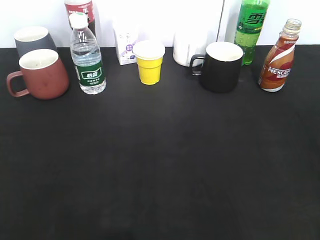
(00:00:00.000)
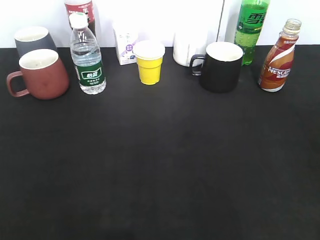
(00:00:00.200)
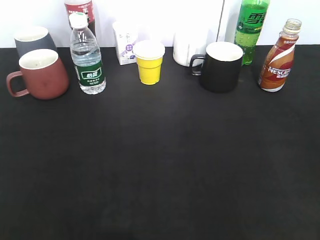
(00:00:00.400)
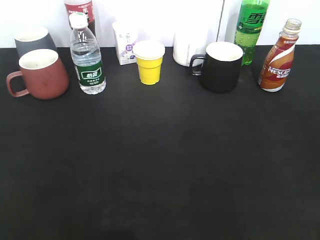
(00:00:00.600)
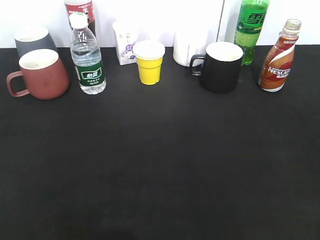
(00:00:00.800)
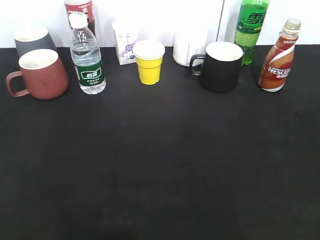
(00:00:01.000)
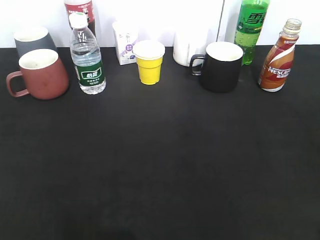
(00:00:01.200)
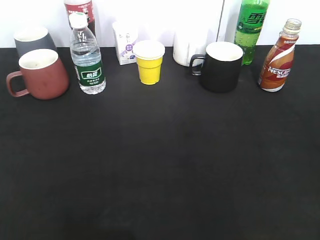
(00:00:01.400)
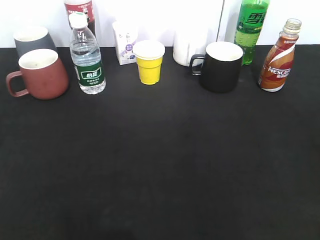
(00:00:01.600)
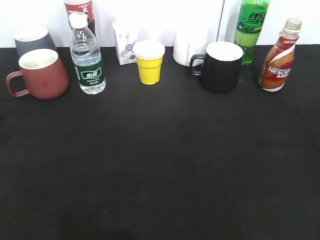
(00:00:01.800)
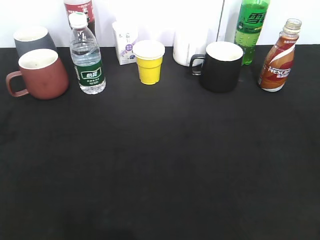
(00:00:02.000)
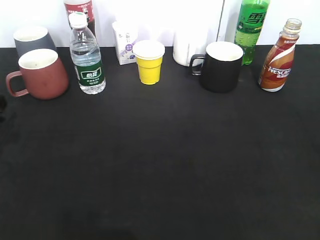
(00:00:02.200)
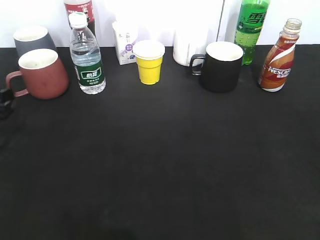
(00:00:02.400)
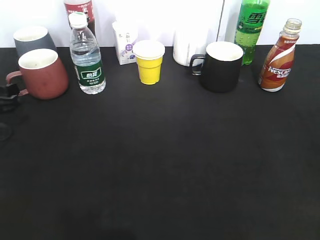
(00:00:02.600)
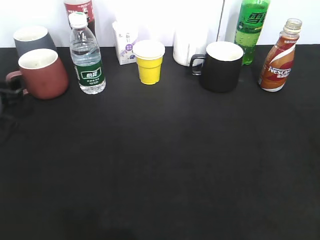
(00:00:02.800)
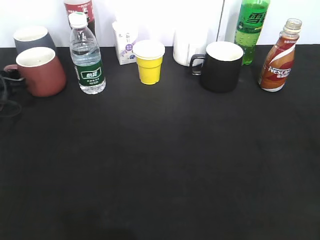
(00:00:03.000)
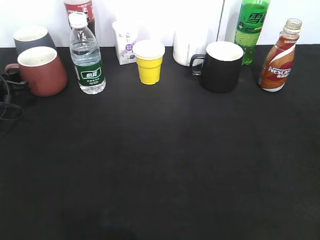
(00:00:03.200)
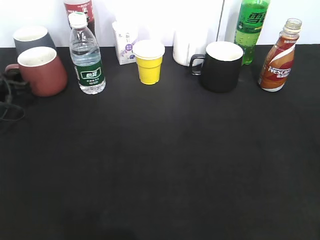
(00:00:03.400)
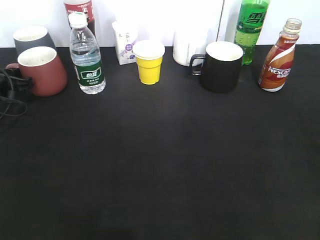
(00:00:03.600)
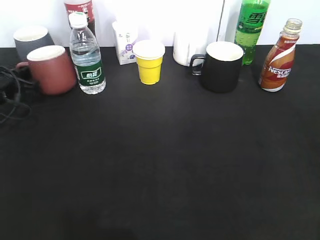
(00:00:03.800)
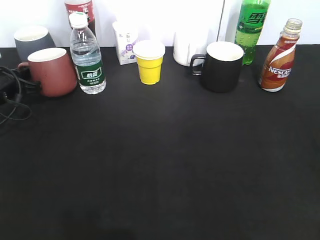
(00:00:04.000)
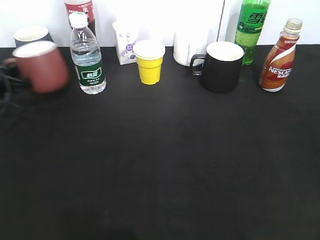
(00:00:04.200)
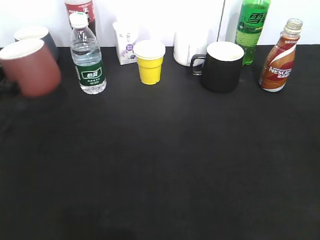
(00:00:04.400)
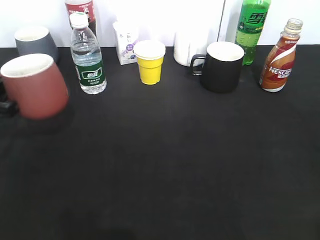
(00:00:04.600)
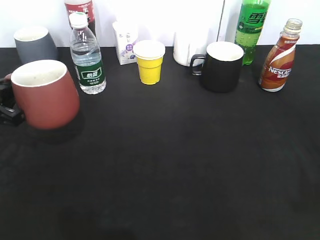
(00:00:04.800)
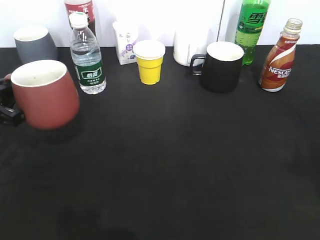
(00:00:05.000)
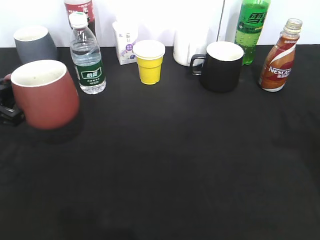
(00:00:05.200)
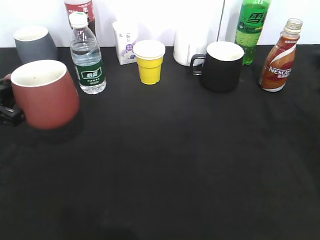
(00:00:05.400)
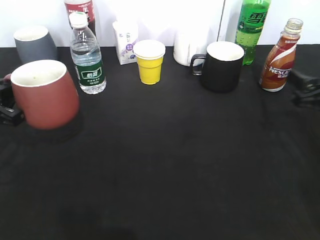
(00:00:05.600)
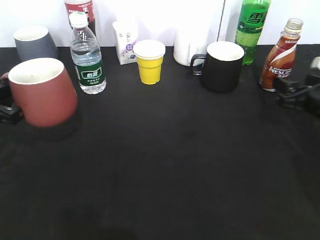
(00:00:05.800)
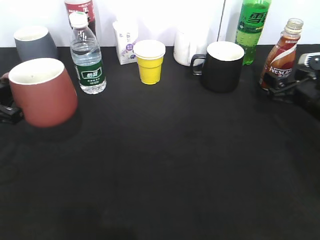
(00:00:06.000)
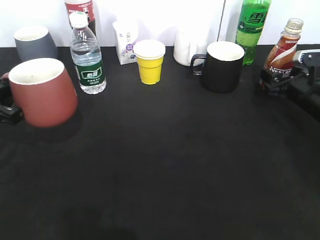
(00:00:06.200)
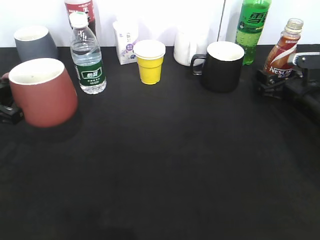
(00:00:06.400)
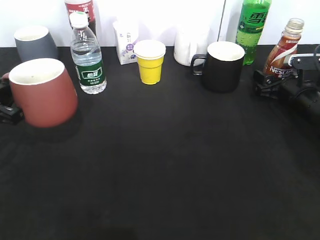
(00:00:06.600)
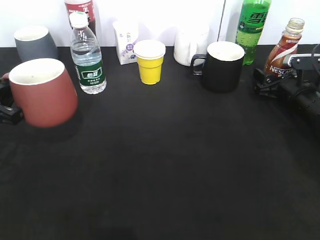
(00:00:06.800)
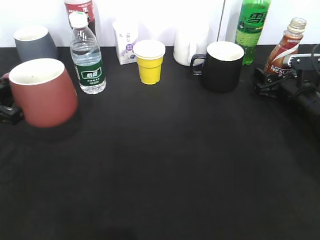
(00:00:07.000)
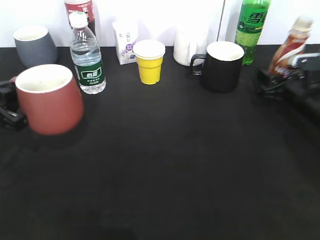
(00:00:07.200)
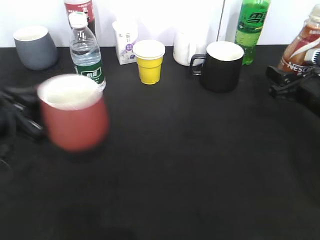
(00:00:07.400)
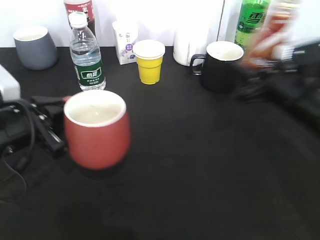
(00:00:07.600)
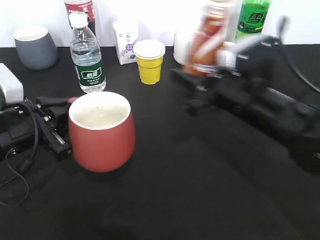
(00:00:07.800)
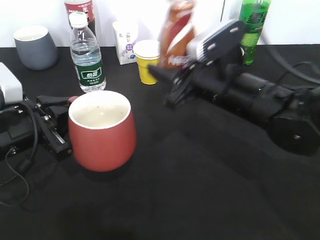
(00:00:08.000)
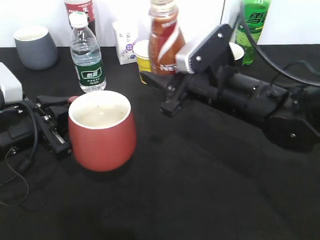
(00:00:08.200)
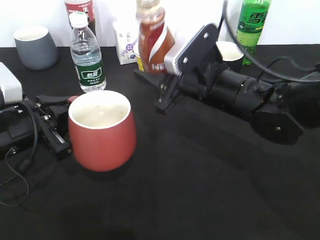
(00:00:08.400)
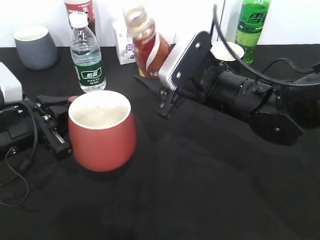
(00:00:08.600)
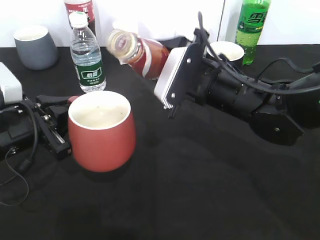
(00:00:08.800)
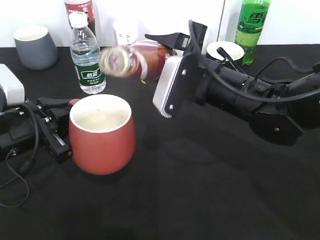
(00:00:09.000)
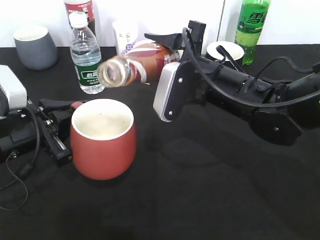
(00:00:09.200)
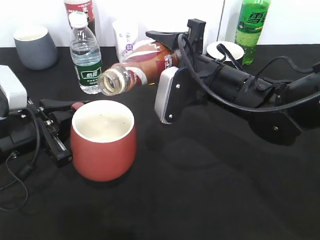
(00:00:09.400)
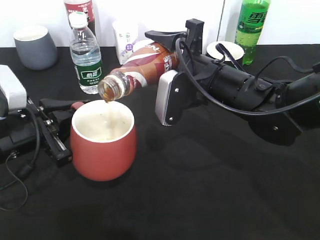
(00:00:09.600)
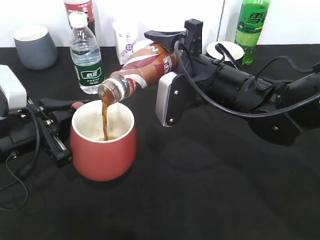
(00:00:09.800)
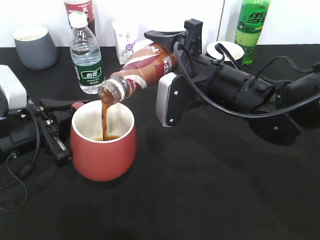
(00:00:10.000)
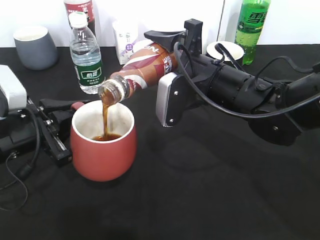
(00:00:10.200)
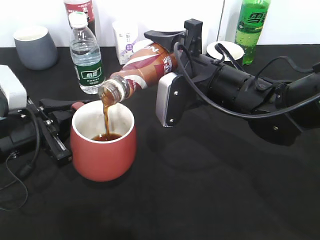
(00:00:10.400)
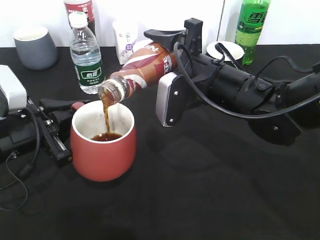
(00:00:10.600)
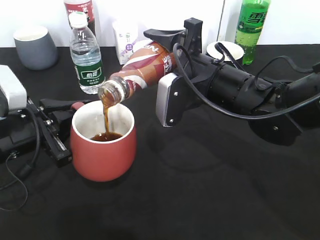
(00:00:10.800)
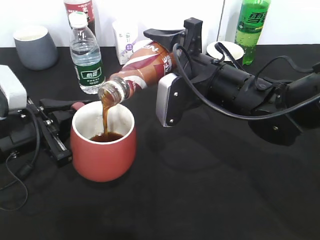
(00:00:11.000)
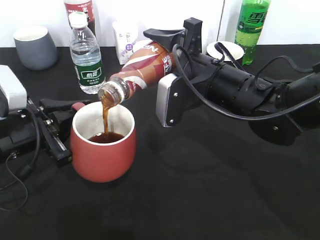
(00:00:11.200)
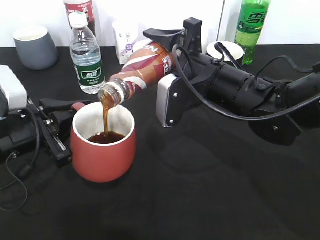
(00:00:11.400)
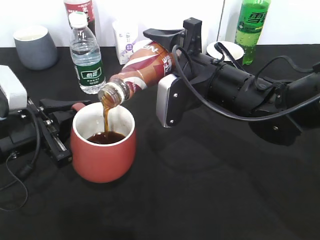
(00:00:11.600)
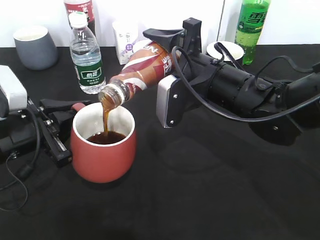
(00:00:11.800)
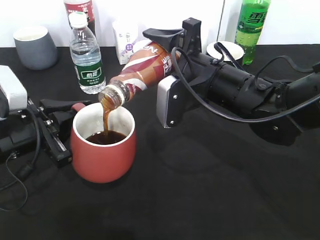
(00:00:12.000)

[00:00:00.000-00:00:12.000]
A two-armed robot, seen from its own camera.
Step, 00:00:00.000 to 00:00:03.200: Grasp the red cup with left gripper.
Step, 00:00:03.400 to 00:00:04.800: Lift the red cup with left gripper.
Step, 00:00:05.000 to 00:00:06.600: Grasp the bottle with coffee with right gripper.
00:00:01.600 to 00:00:03.000: The left gripper is displaced forward and downward by some 20 cm, and closes up.
00:00:03.000 to 00:00:04.400: The left gripper closes.
00:00:04.400 to 00:00:06.000: The left gripper is displaced backward by roughly 5 cm. Meanwhile the right gripper shifts approximately 40 cm forward and downward, and opens its fingers.
00:00:06.000 to 00:00:07.600: The left gripper moves to the right, some 10 cm. Meanwhile the right gripper travels to the left, backward and upward by about 15 cm, and closes its fingers.
00:00:07.600 to 00:00:09.000: The right gripper shifts roughly 10 cm to the left.
00:00:10.400 to 00:00:12.000: Both grippers stay put.

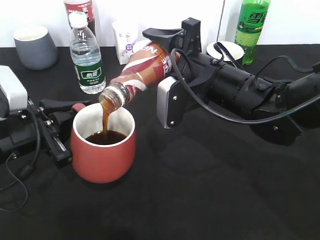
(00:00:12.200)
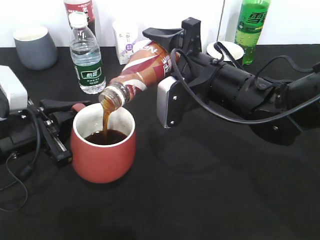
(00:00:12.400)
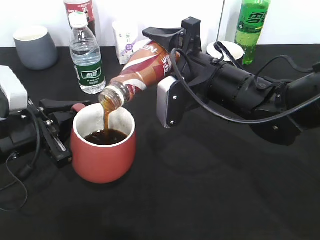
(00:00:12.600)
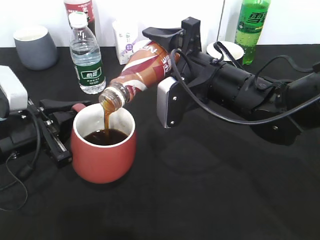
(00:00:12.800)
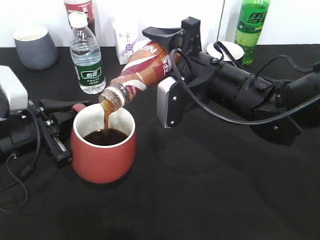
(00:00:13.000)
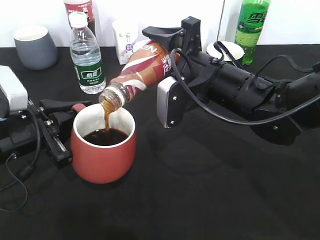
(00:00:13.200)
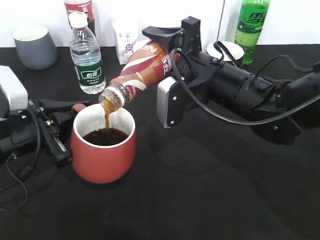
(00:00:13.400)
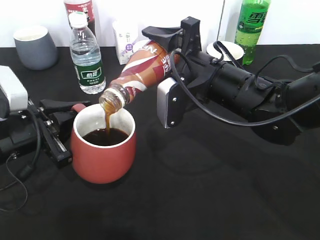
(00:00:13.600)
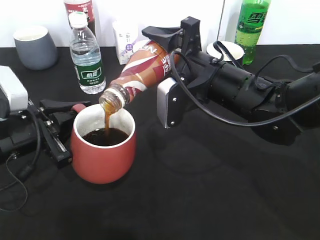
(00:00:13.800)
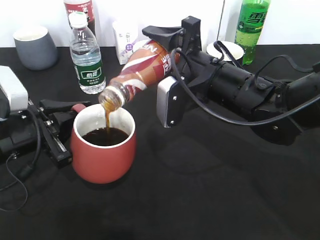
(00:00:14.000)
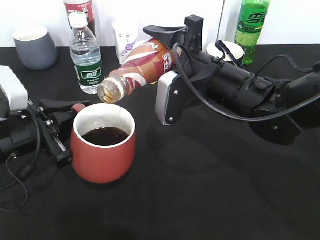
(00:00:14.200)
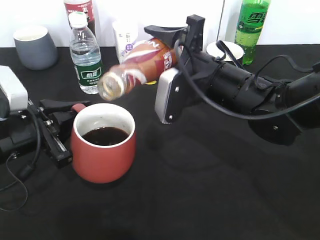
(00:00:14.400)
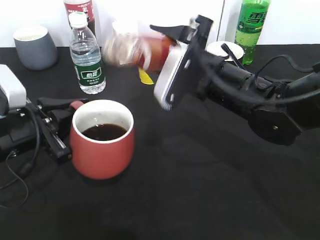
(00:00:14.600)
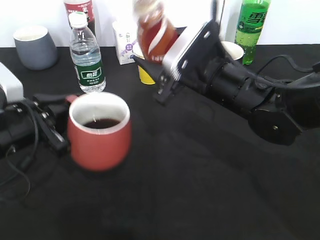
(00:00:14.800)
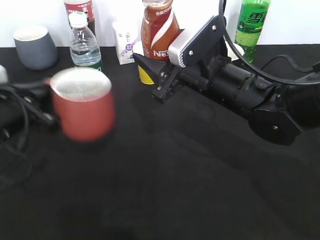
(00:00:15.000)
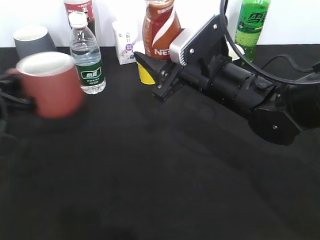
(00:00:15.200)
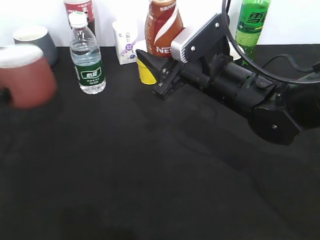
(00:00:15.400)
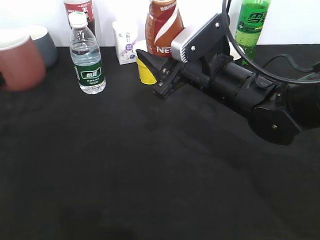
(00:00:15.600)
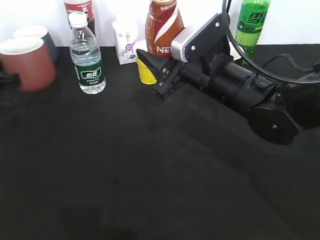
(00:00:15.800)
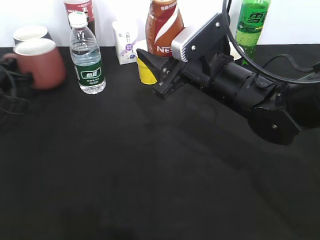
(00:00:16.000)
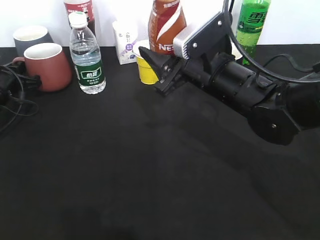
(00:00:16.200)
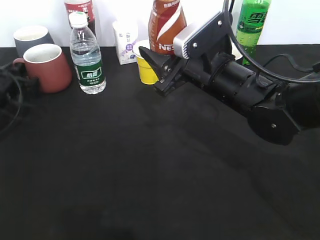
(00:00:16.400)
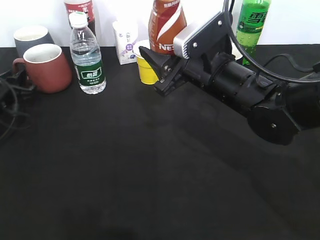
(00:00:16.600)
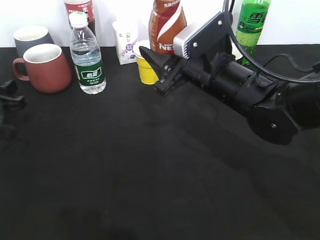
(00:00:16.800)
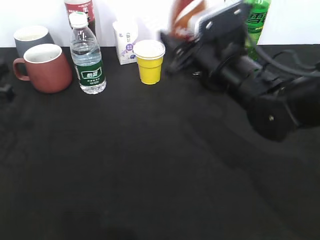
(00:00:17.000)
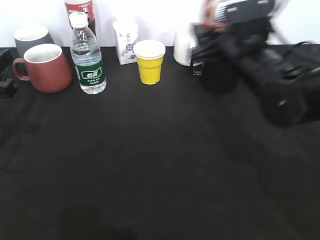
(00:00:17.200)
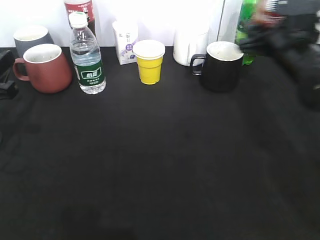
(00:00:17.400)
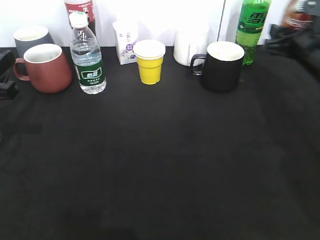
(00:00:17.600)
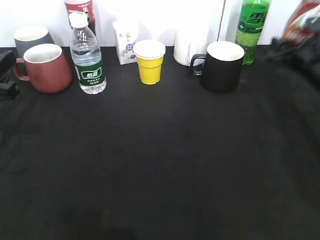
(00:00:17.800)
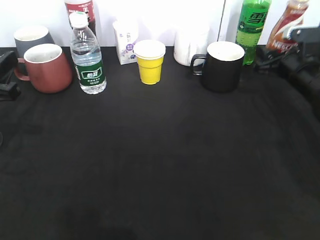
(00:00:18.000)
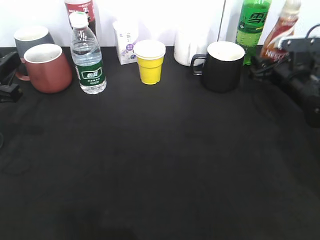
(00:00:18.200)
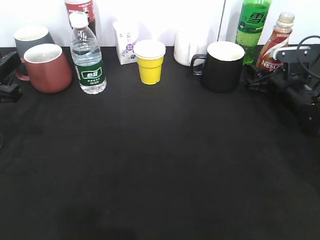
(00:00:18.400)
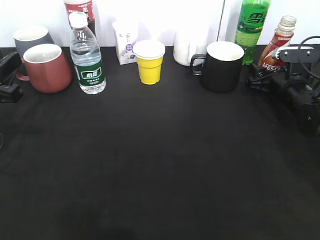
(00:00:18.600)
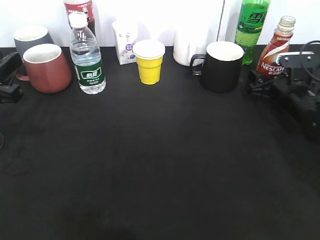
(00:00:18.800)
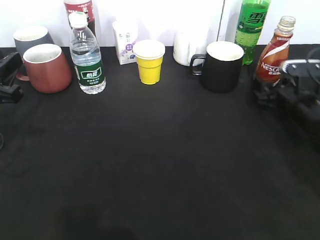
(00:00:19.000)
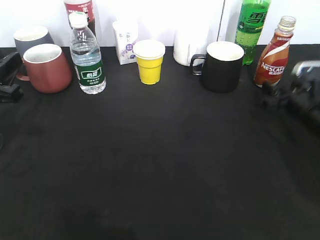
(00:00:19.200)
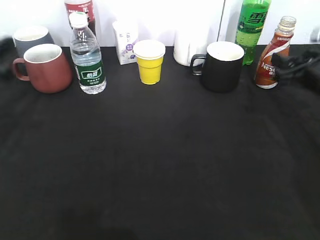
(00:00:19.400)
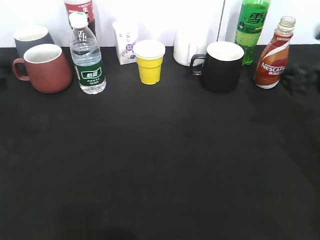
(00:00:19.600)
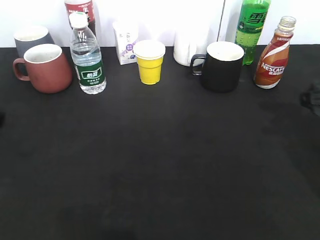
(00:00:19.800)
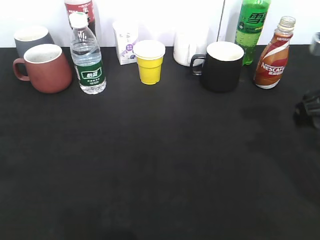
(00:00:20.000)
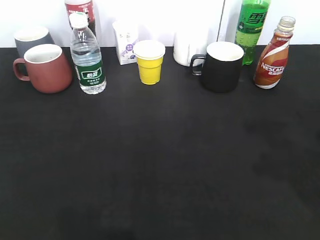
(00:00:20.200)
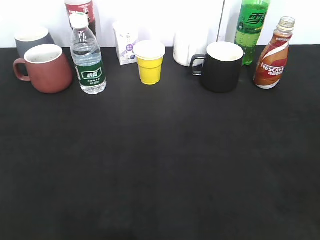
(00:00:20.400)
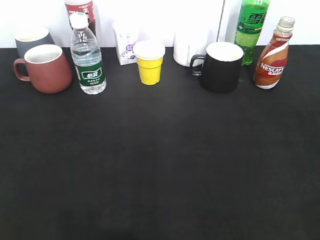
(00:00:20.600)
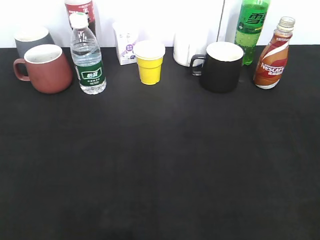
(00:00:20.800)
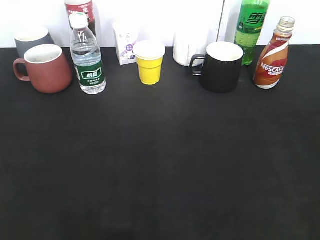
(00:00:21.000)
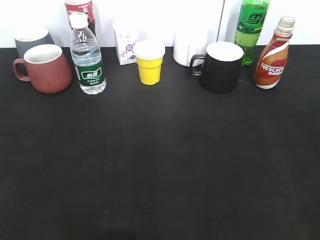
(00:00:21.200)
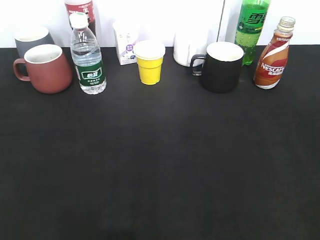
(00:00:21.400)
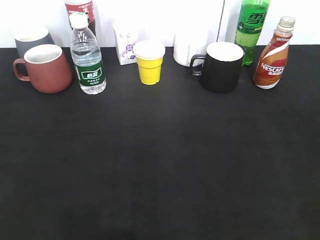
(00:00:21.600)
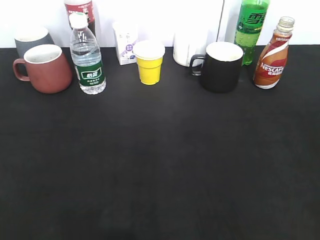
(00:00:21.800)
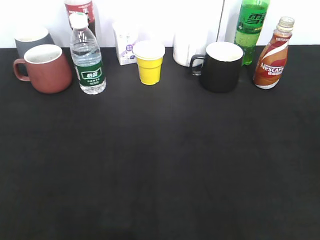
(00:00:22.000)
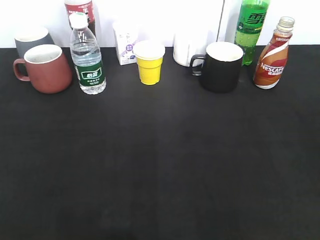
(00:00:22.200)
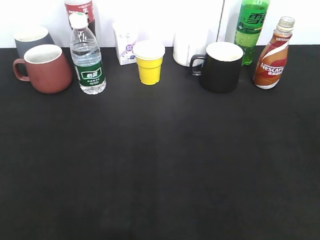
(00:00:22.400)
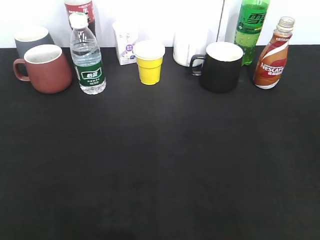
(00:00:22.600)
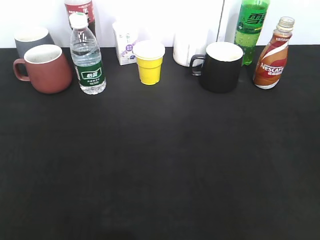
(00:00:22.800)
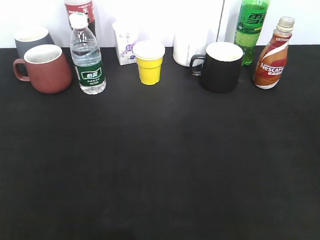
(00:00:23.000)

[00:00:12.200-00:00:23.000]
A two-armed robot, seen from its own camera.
Step, 00:00:12.200 to 00:00:14.800: Pour the coffee from bottle to cup with right gripper.
Step, 00:00:15.000 to 00:00:16.600: Place the red cup on the table with left gripper.
Step, 00:00:16.800 to 00:00:19.000: Place the coffee bottle on the table with right gripper.
00:00:12.200 to 00:00:13.800: Both grippers stay put.
00:00:13.800 to 00:00:15.200: The left gripper travels to the left by about 5 cm.
00:00:15.200 to 00:00:16.800: The left gripper goes forward and returns, roughly 15 cm each way, and opens up.
00:00:16.800 to 00:00:18.400: The left gripper moves upward and backward, roughly 10 cm. The right gripper heads to the right, downward and forward, covering roughly 25 cm.
00:00:18.400 to 00:00:20.000: The right gripper travels backward and upward by some 25 cm, and opens, then closes once more. The left gripper shifts about 15 cm upward and backward.
00:00:20.000 to 00:00:21.400: The left gripper heads backward, covering roughly 10 cm, and opens up; the right gripper is displaced backward by roughly 20 cm, and opens up.
